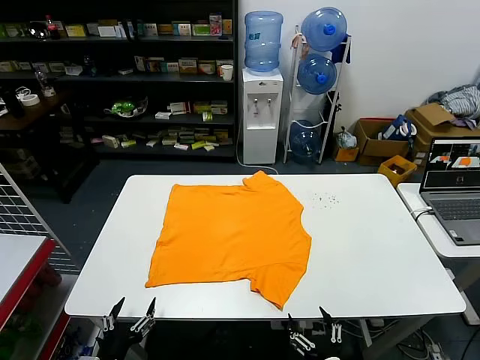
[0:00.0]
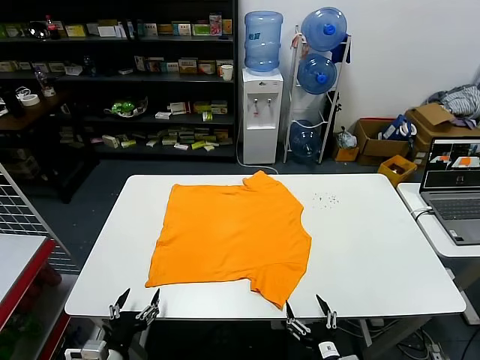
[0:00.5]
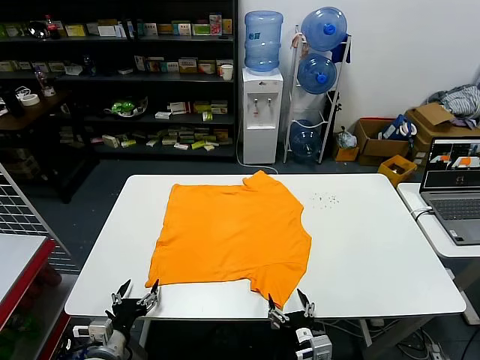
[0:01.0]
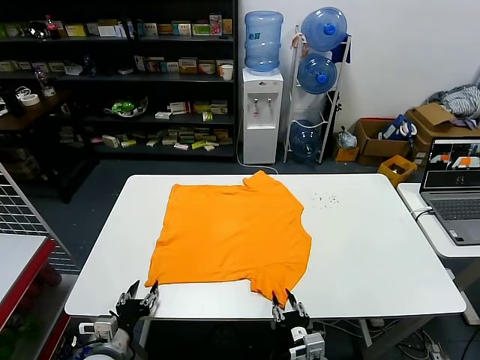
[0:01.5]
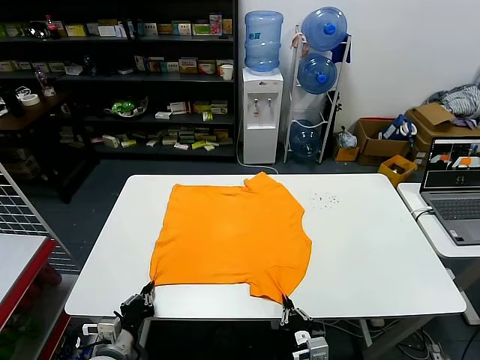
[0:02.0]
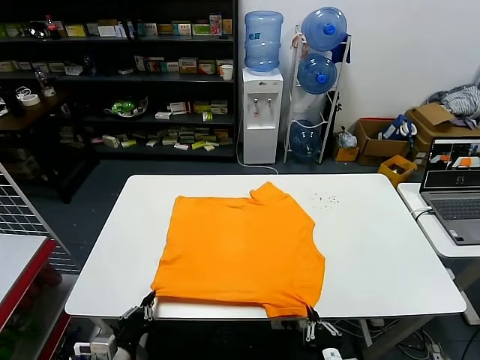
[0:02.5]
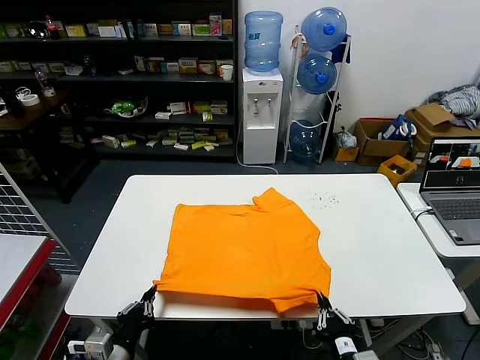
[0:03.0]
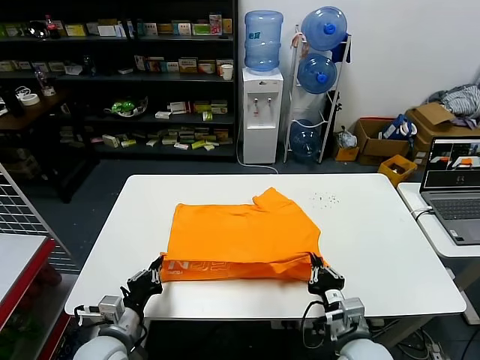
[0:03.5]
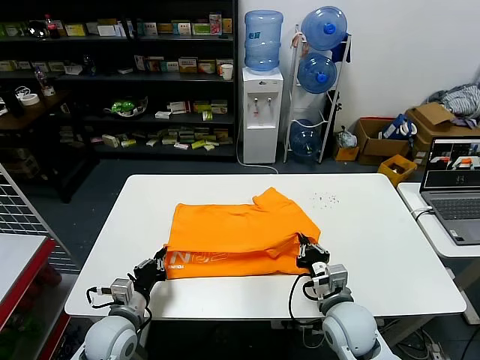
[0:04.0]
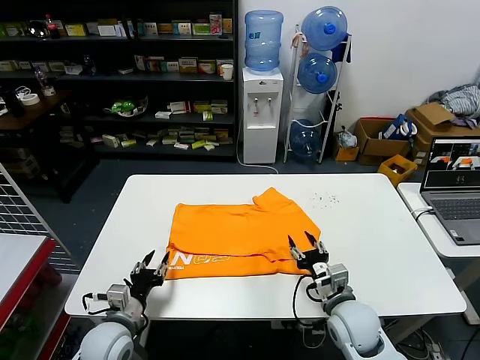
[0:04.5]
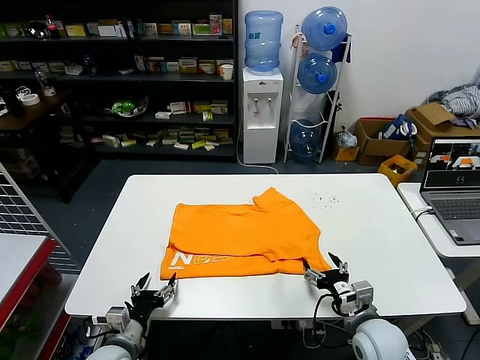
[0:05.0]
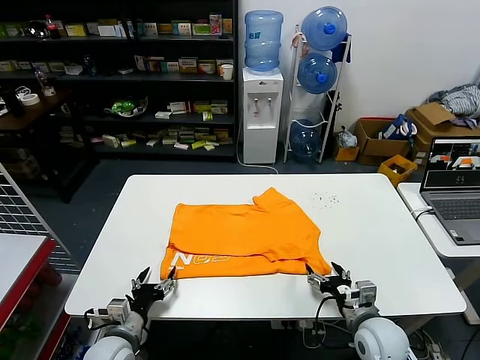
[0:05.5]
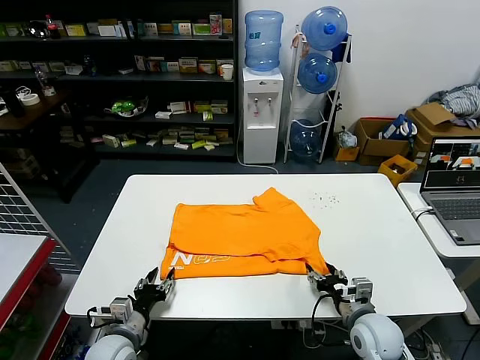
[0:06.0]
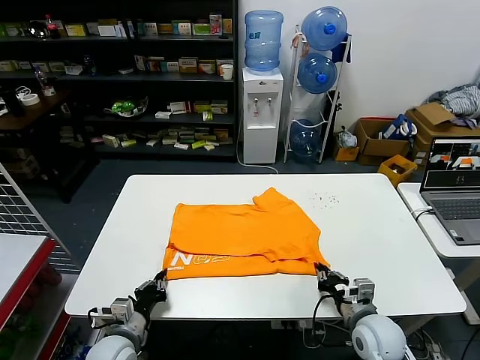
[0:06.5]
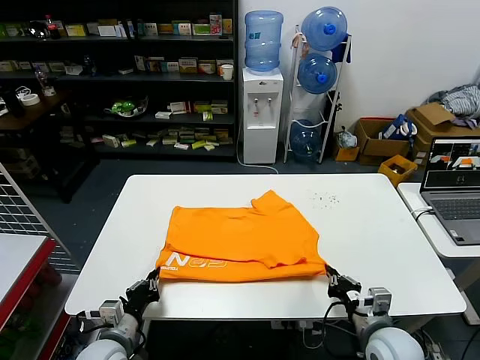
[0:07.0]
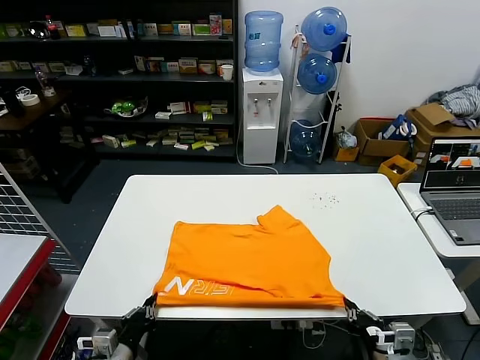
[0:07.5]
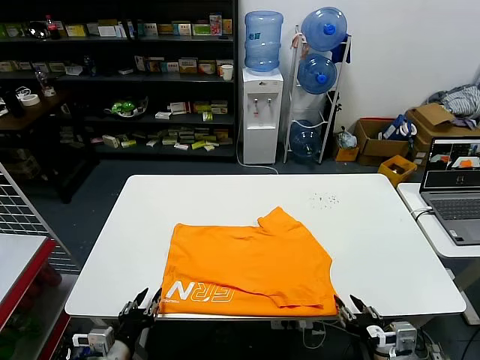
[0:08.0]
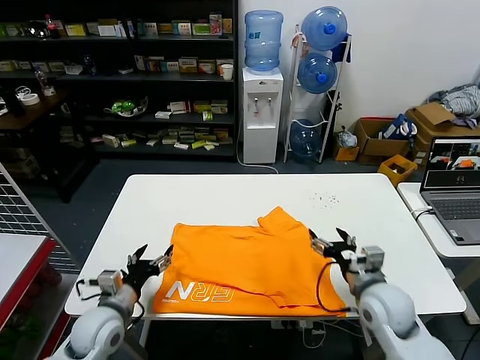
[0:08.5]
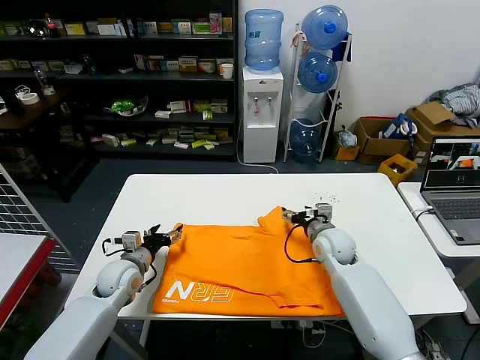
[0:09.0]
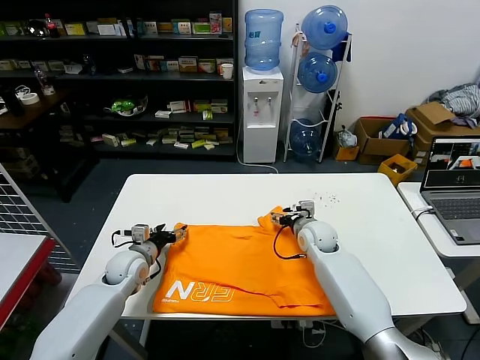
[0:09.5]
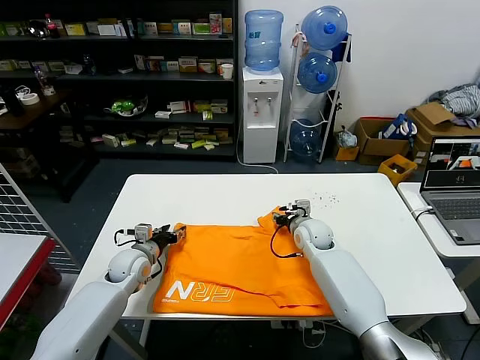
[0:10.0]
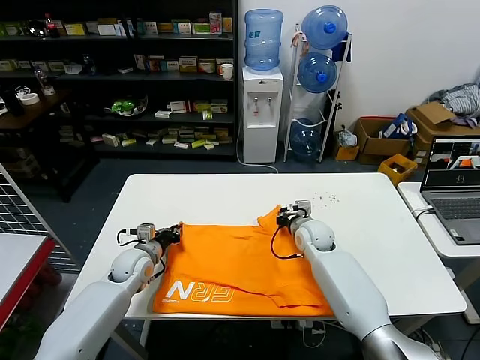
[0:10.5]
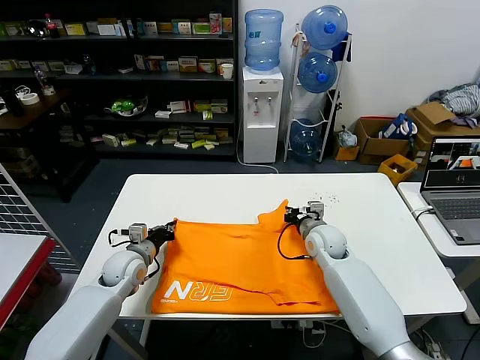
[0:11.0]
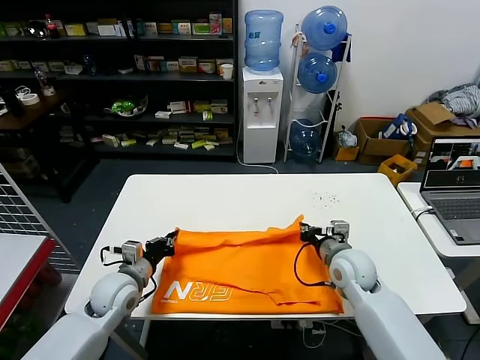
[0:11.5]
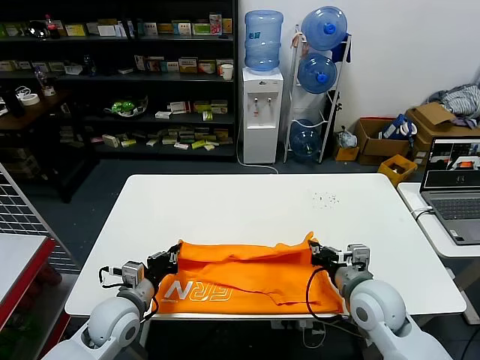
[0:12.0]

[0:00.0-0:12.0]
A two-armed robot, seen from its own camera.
Task of the whole recording: fold and organize the clothes.
Step, 0.0 to 2.0 s: use both grippers simultaneously to clamp the lower edge of the clothing fabric.
Step, 2.5 to 4.0 s: use both grippers to drag the lower edge of the fabric forward and fold it over the upper edge.
Step, 4.5 to 7.5 s: Drag the clothes downward with both gripper.
Step, 8.0 to 10.5 s: use both grippers simultaneously to clamp the upper edge of the clothing fabric.
2.0 to 4.0 s: The right gripper moves forward and upward, some 15 cm. The left gripper goes some 5 cm forward.
4.0 to 6.0 s: The left gripper opens up. Meanwhile the right gripper heads to the right, covering approximately 5 cm, and opens its fingers.
6.0 to 8.0 s: The right gripper shifts some 10 cm backward and upward, and closes and opens again, while the left gripper goes some 5 cm backward, and closes, then reopens.
8.0 to 10.0 s: Both grippers travel together forward, roughly 30 cm. The right gripper opens, then closes once more.
10.0 to 12.0 s: The left gripper goes roughly 15 cm backward, and closes up, while the right gripper moves backward, roughly 20 cm, and closes its fingers.

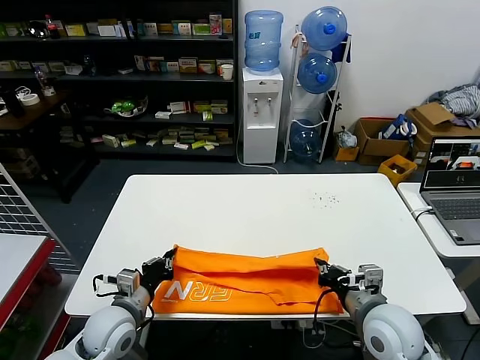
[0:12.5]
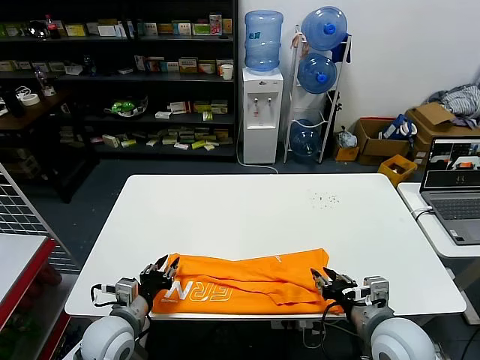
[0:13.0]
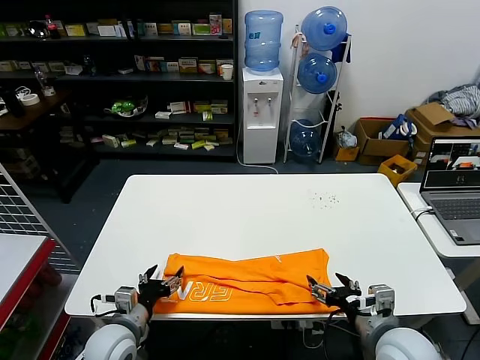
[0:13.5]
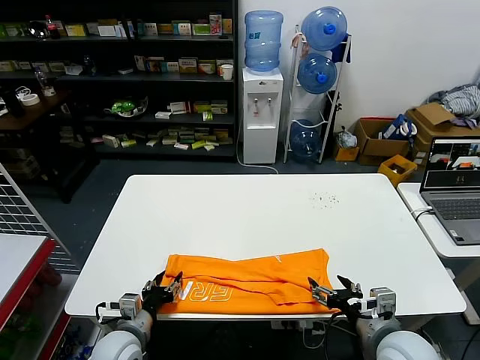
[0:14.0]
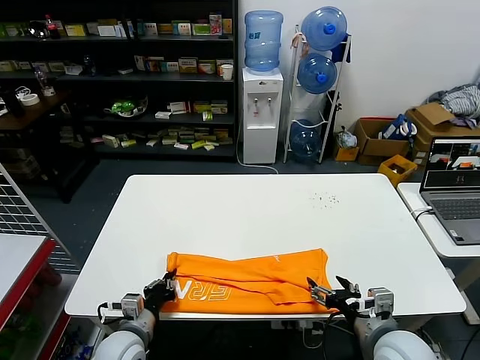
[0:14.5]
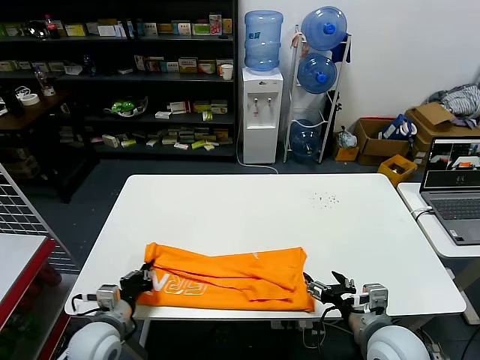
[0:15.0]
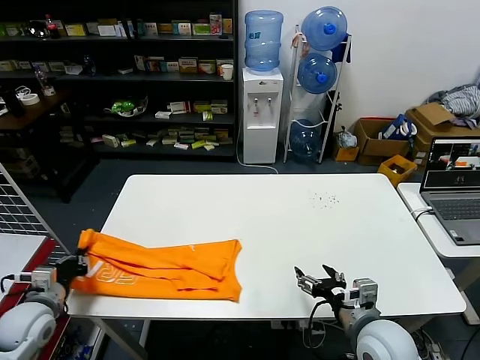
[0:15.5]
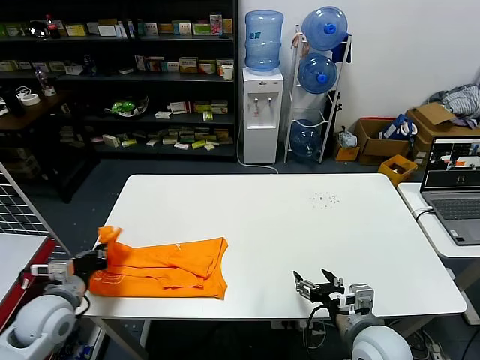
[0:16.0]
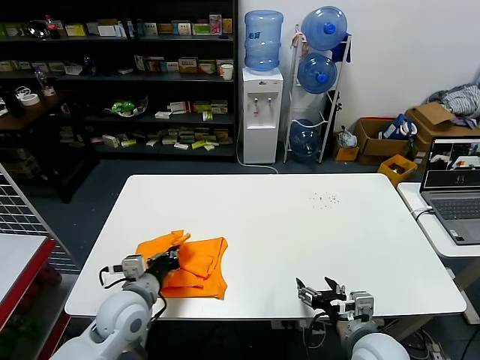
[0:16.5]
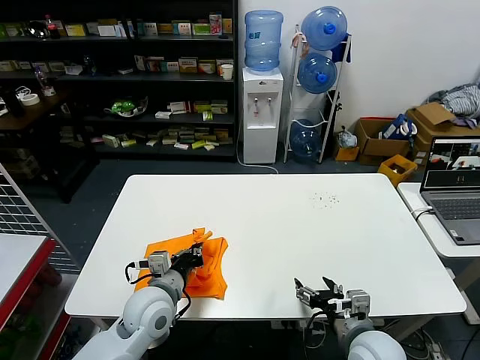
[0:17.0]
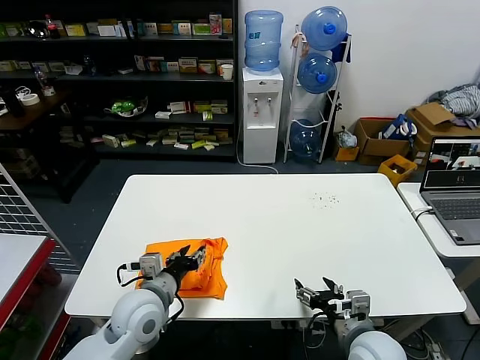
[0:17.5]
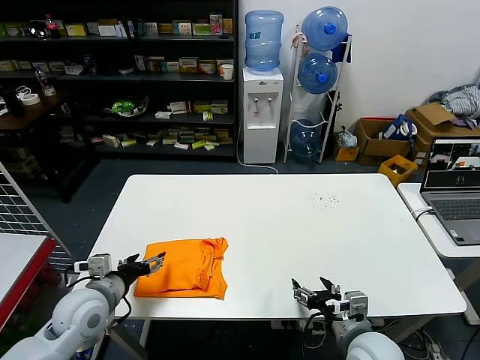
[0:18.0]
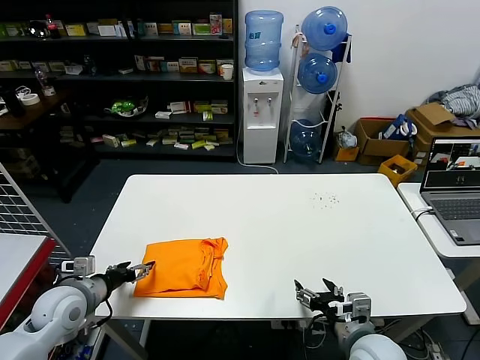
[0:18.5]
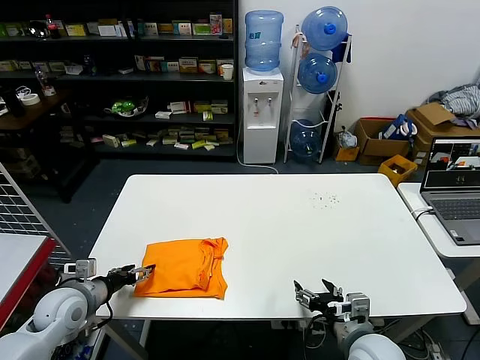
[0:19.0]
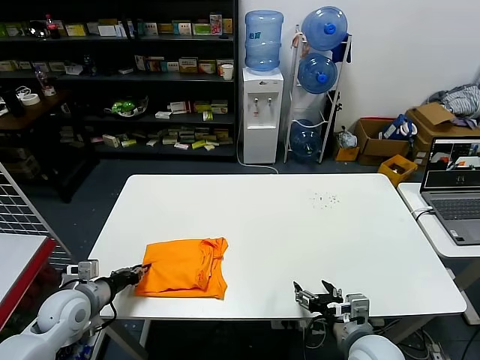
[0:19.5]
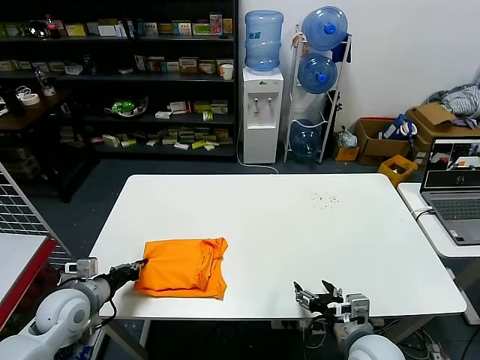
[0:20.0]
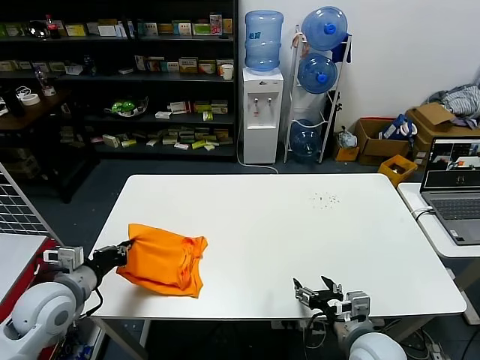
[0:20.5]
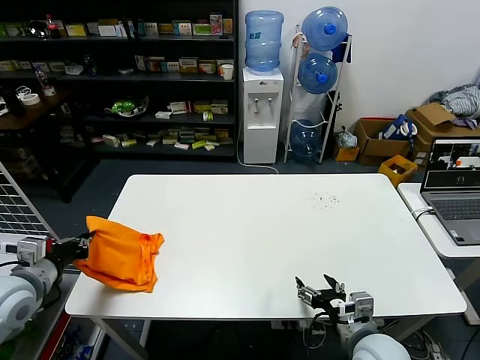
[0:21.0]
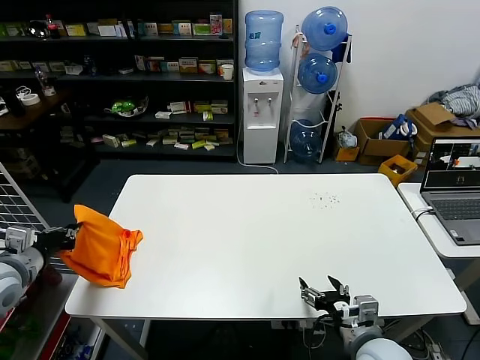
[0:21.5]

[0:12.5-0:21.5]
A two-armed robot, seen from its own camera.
Task of the whole recording: fold and organize the clothes.
Step, 13.0 to 14.5 s: use the left gripper to clamp the left edge of the fabric.
Step, 15.0 to 17.0 s: use the left gripper to drag the left edge of the fabric to the left and folds it over the right edge.
12.5 to 14.5 s: The left gripper shifts roughly 5 cm downward, and opens, then closes again; the right gripper opens up.
14.5 to 17.0 s: The left gripper shifts approximately 10 cm upward and forward, and moves roughly 20 cm to the left and comes back.
17.0 to 19.5 s: The left gripper goes some 20 cm to the left, and opens, then closes again.
19.5 to 21.5 s: The left gripper shifts some 15 cm upward and to the left, and closes.

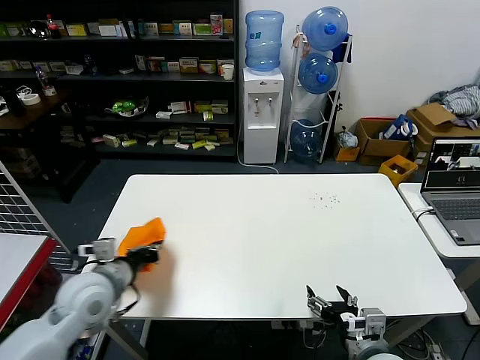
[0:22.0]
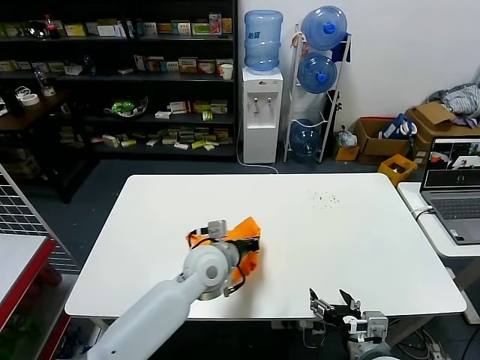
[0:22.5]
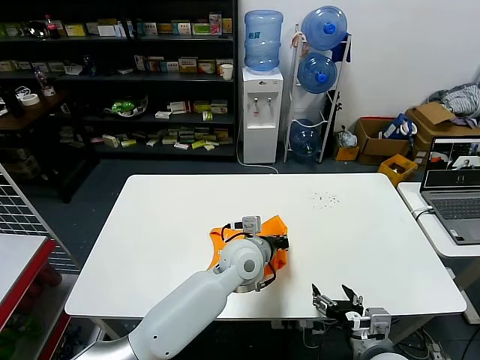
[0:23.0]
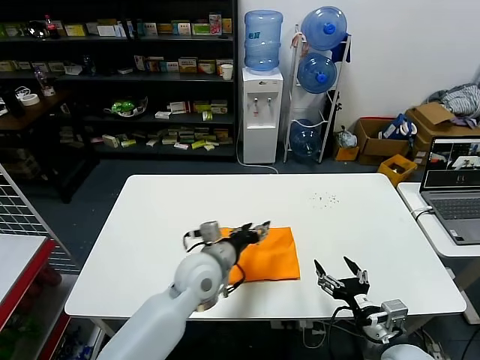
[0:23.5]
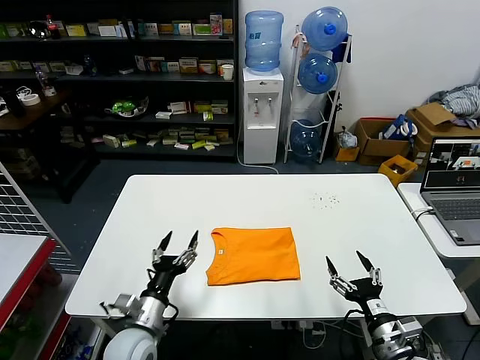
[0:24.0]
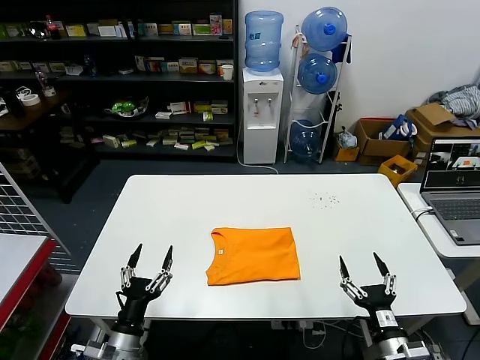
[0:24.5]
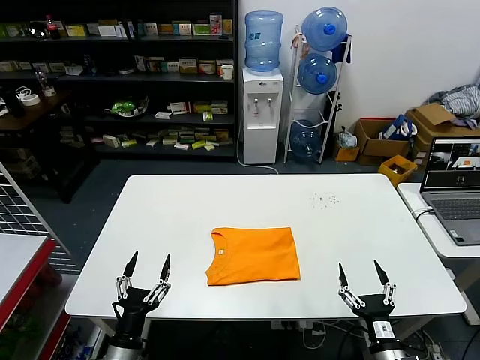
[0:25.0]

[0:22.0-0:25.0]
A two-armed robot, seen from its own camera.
Task of the whole recording: fold and organize the clothes.
22.0 to 23.5 s: The left gripper moves to the right, about 25 cm, and opens its fingers.
23.5 to 25.0 s: The left gripper travels backward, to the left and downward by approximately 30 cm; the right gripper is displaced downward and backward by about 10 cm.

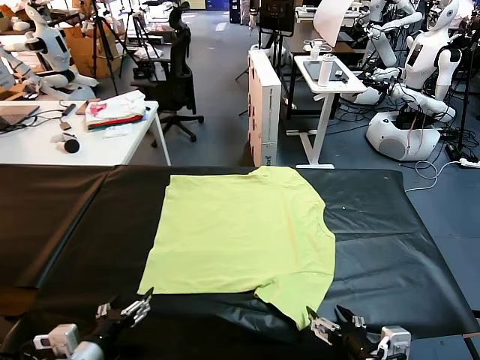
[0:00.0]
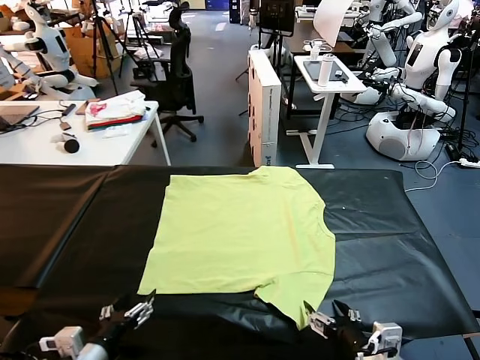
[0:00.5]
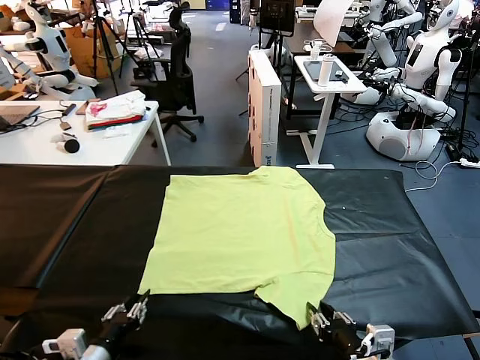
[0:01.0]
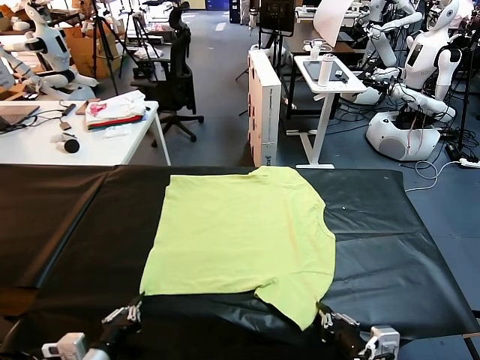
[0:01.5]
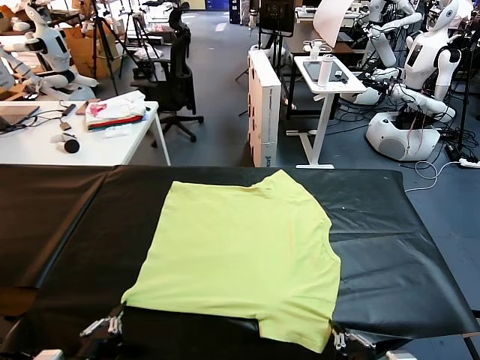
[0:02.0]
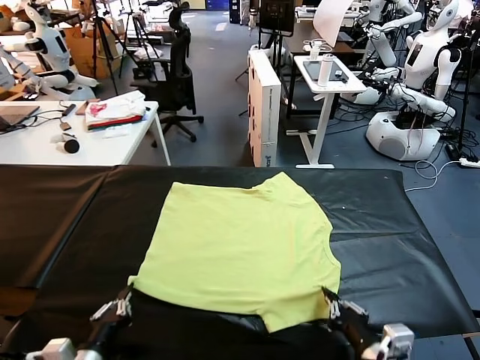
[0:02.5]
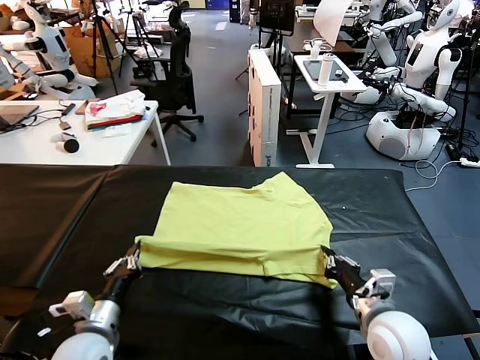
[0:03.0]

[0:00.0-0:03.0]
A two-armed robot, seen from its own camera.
Task of the whole recording: fold and organize the clothes.
Step, 0.0 to 1.5 s: use both grippers simultaneously to clamp the lower edge of the clothing fabric.
1.5 to 3.0 s: The left gripper is displaced forward by about 10 cm; the right gripper heads forward, covering about 15 cm.
